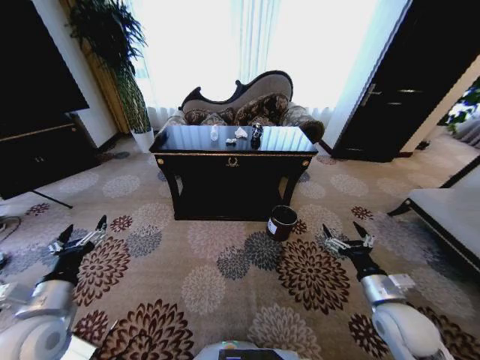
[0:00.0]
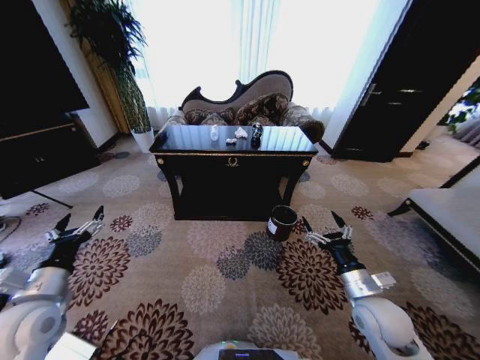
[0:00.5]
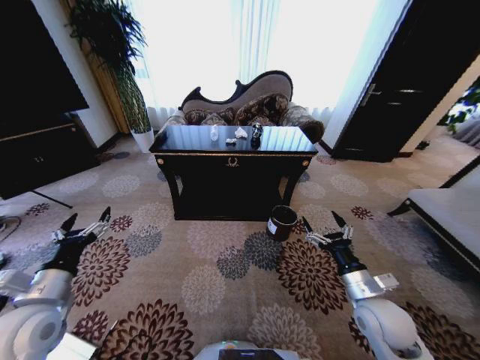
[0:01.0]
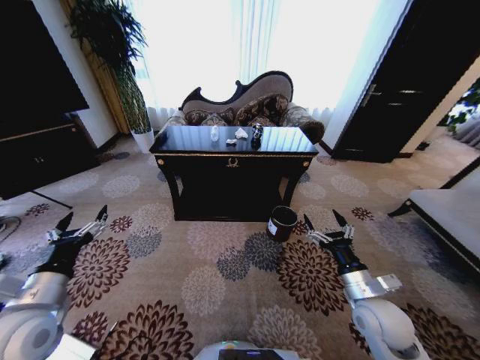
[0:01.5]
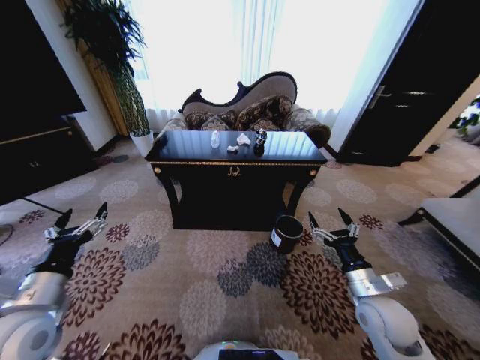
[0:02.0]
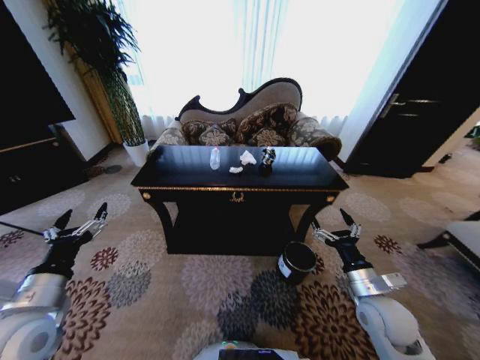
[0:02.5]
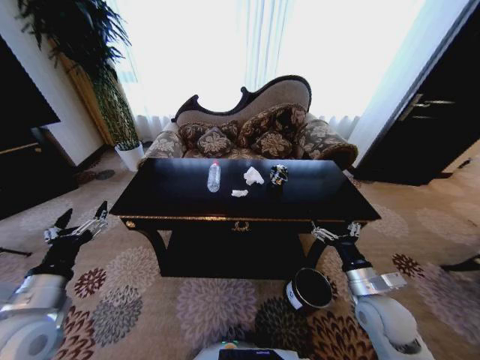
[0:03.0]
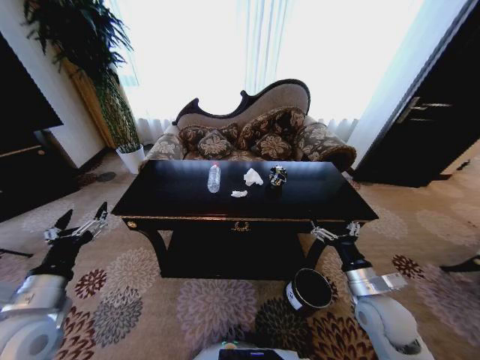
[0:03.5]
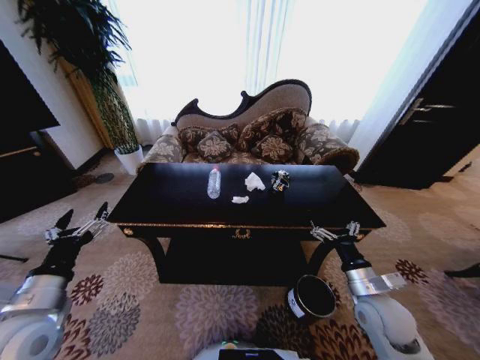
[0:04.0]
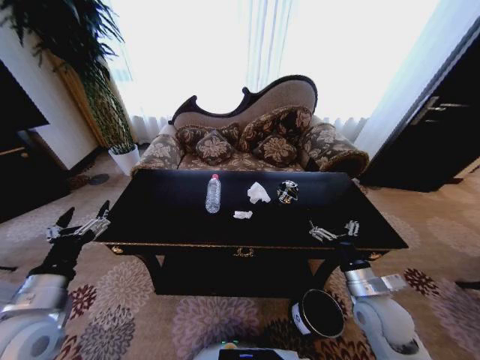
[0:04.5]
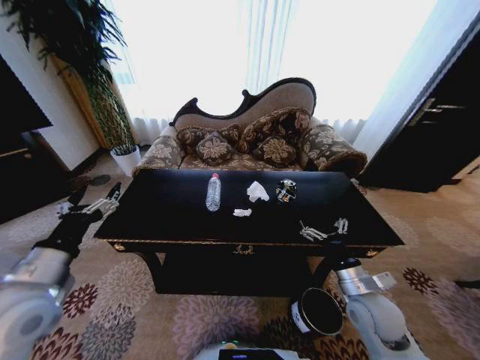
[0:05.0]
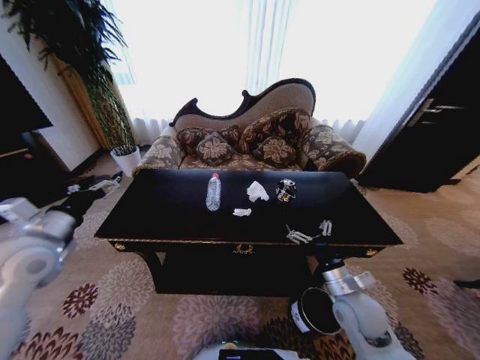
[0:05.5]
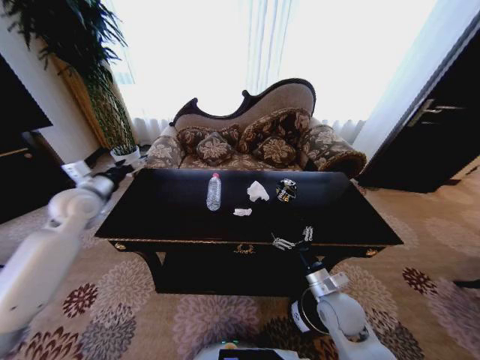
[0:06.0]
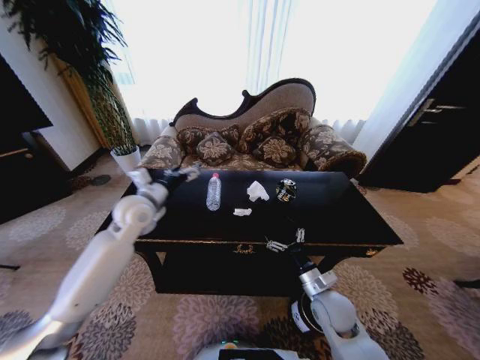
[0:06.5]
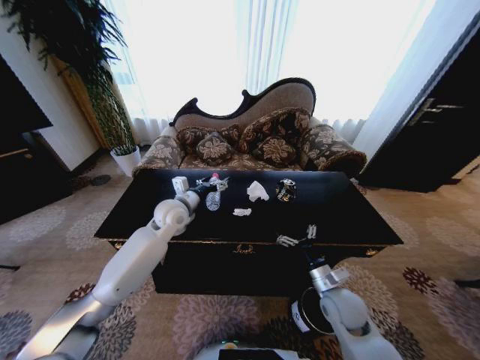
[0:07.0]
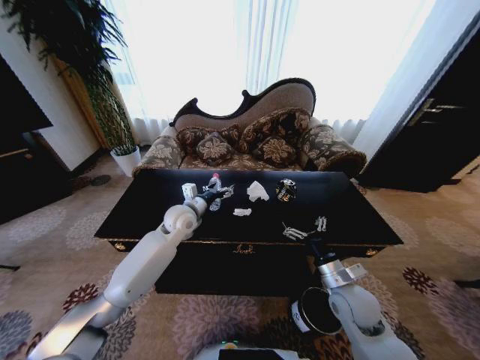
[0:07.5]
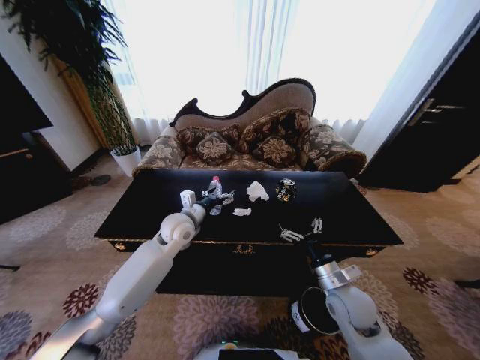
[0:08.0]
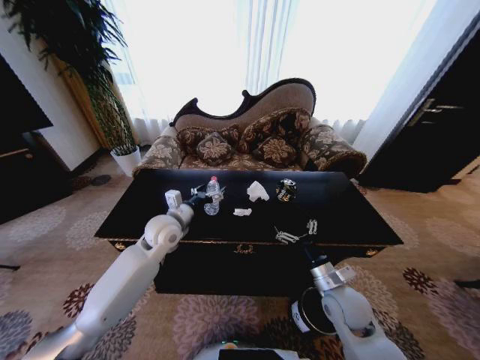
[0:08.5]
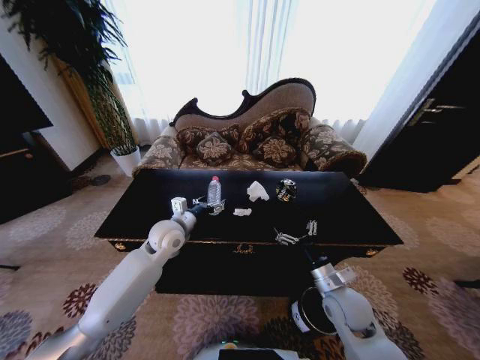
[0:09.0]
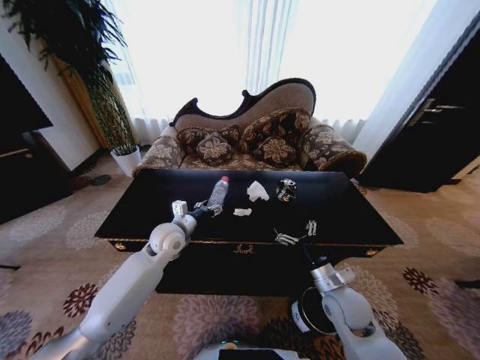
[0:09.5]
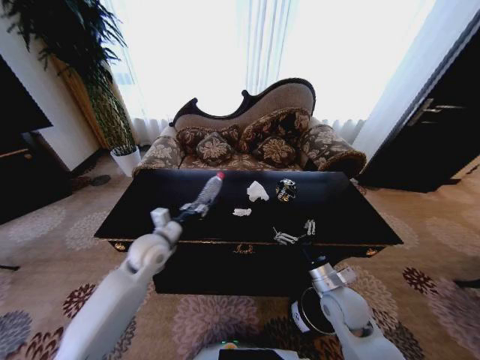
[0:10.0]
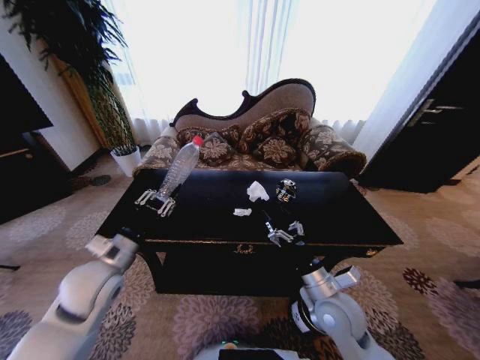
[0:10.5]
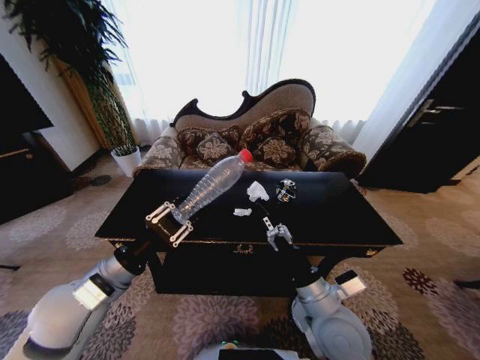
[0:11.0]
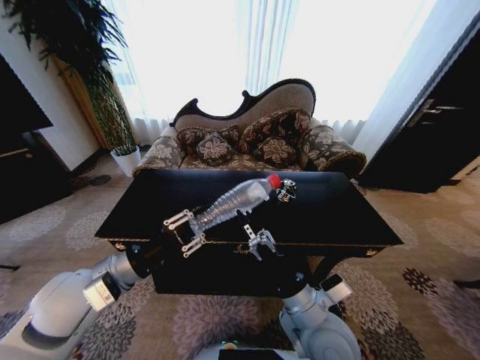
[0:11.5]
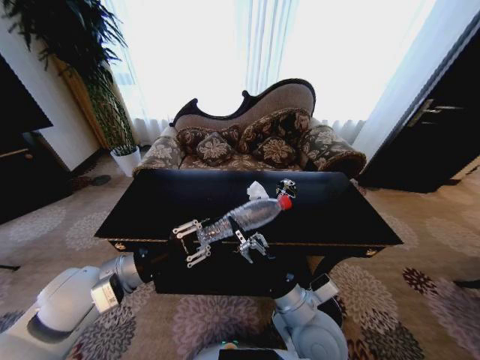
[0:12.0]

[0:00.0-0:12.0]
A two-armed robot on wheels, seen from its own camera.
Task of the whole recording: Move to the front of the table and place the trash on the table into the trash bin.
0:04.0 to 0:06.0: The left gripper heads forward, covering approximately 25 cm, while the right gripper travels to the left by approximately 5 cm.
0:06.0 to 0:08.0: The left gripper shifts some 25 cm to the right and downward.
0:08.0 to 0:10.0: The left gripper moves backward and to the left, some 10 cm, and closes up.
0:10.0 to 0:12.0: The left gripper travels backward and upward by about 15 cm; the right gripper goes some 15 cm to the left, upward and backward.

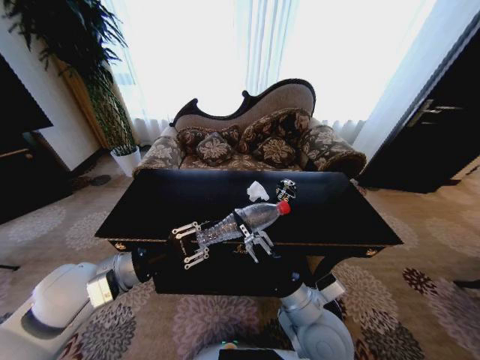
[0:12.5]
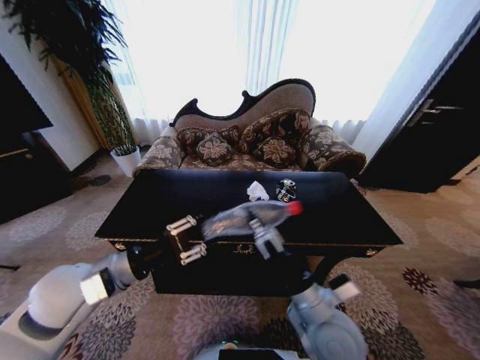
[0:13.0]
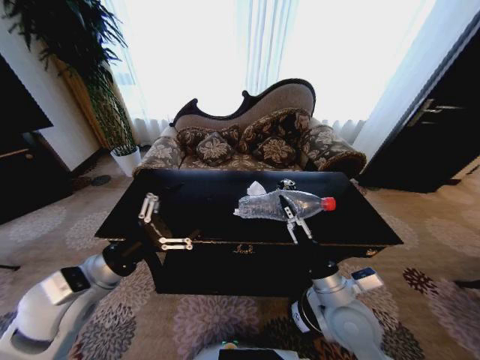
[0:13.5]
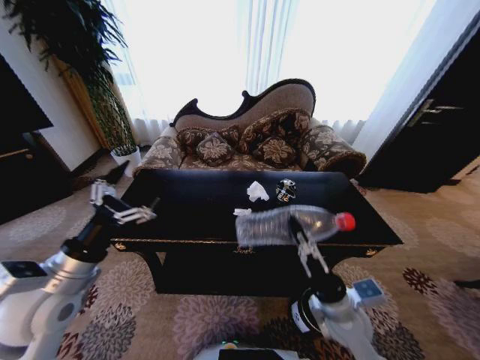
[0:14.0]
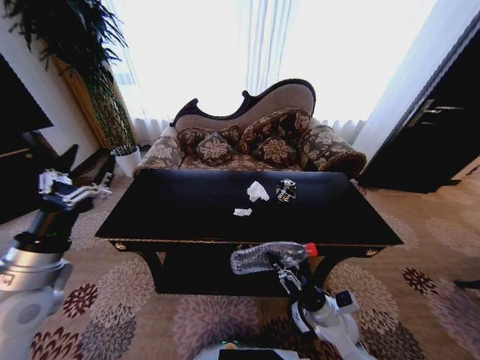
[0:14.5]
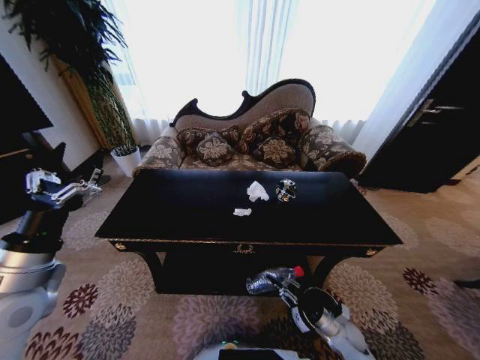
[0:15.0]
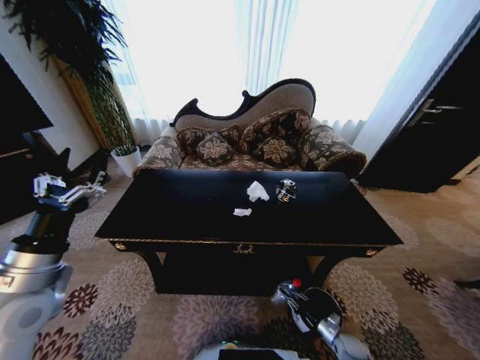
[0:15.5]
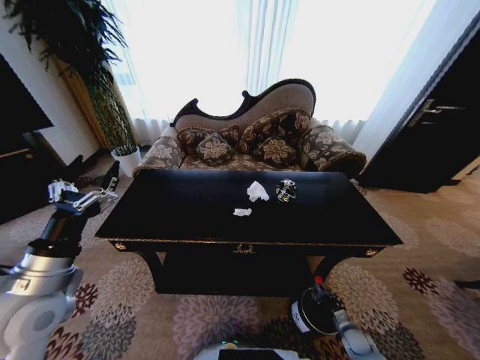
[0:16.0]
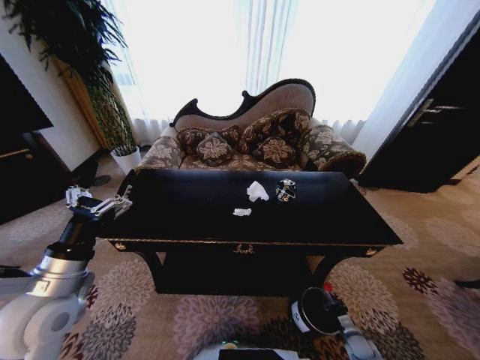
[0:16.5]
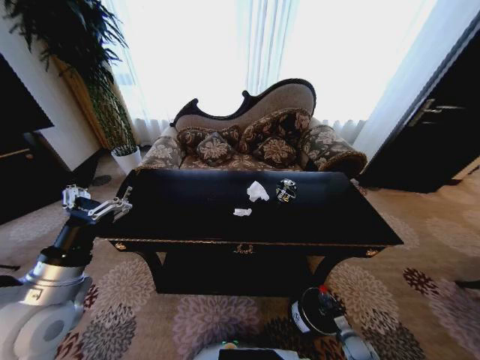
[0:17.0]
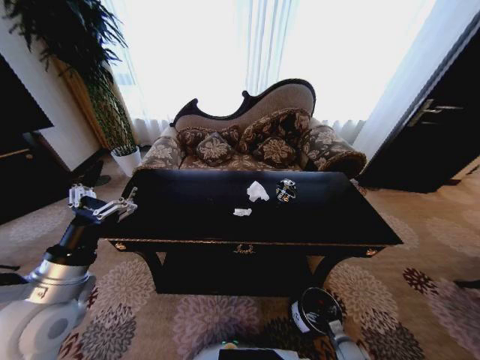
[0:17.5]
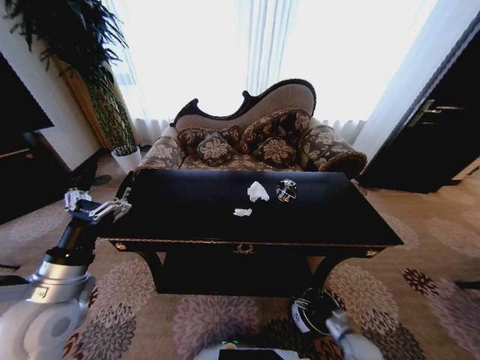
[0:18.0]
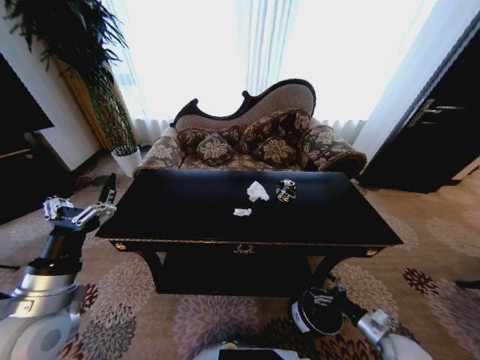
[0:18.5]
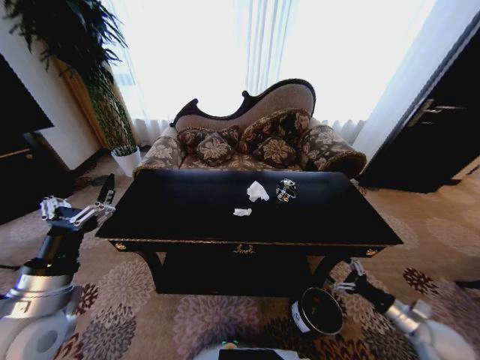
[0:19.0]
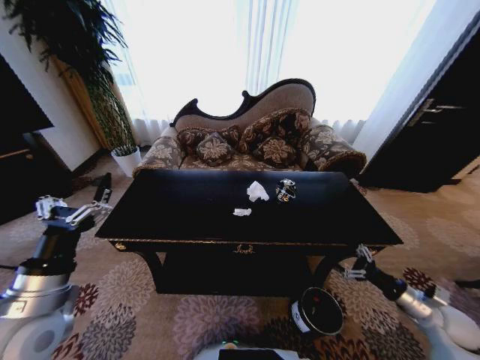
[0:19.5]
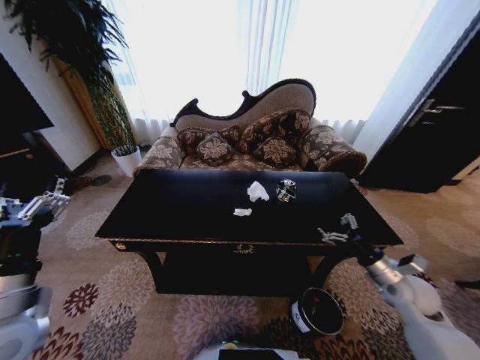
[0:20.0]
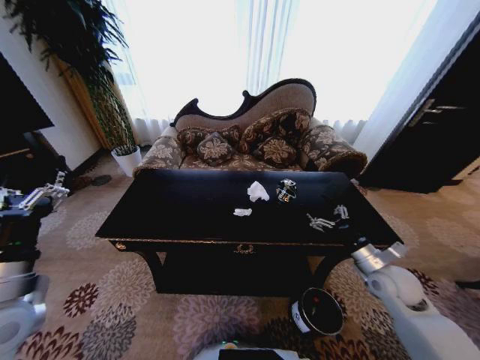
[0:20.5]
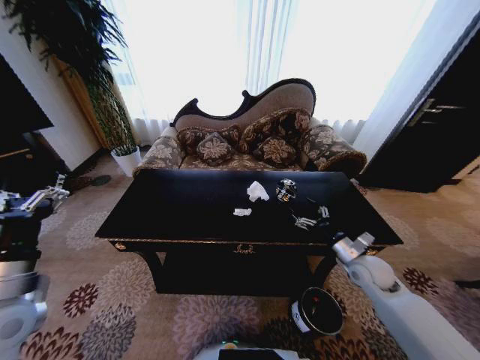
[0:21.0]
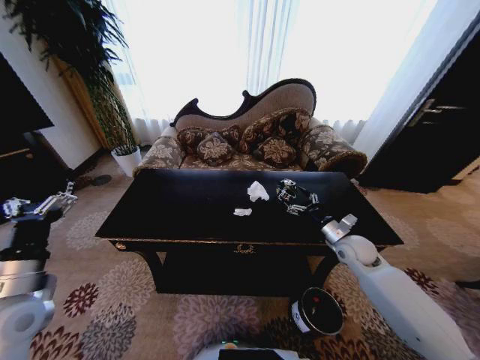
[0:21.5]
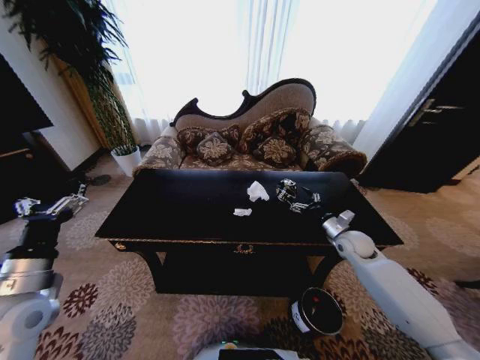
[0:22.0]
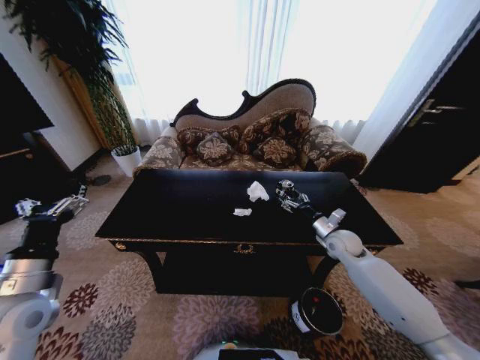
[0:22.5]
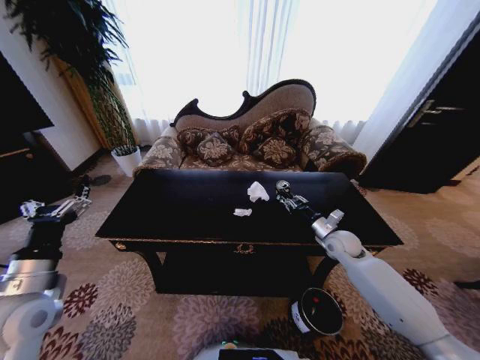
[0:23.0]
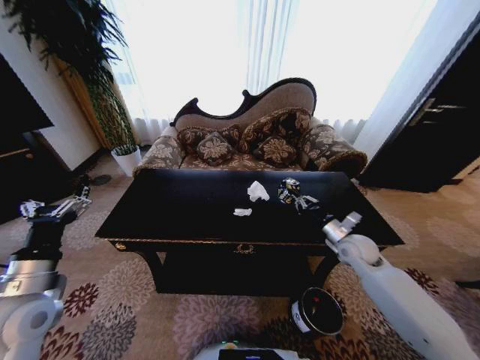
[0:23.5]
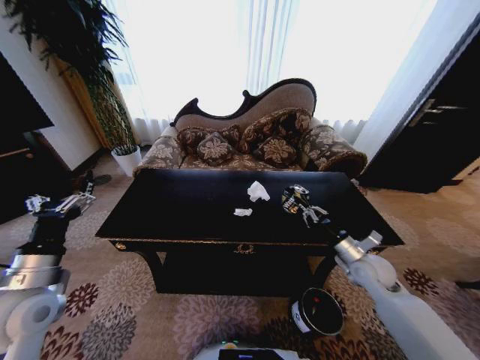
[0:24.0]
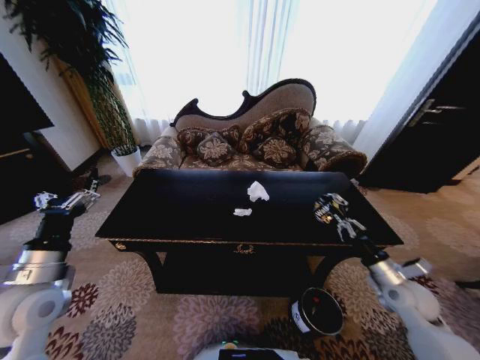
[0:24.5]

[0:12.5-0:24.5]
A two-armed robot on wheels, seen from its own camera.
Task of the whole recording: Move to the front of the table and place the trash on the table into the trash bin.
0:12.5 to 0:14.5: The left gripper shifts about 10 cm to the left, and opens up; the right gripper goes some 20 cm downward and to the right, and closes up.
0:14.5 to 0:16.5: The right gripper shifts approximately 30 cm downward and to the right.
0:16.5 to 0:18.5: The right gripper goes about 15 cm upward, and opens.
0:18.5 to 0:20.5: The right gripper moves upward and forward, some 25 cm. The left gripper shifts by about 5 cm.
0:20.5 to 0:22.5: The right gripper travels forward by about 15 cm.
0:22.5 to 0:24.5: The right gripper shifts some 20 cm backward and to the right, and closes.

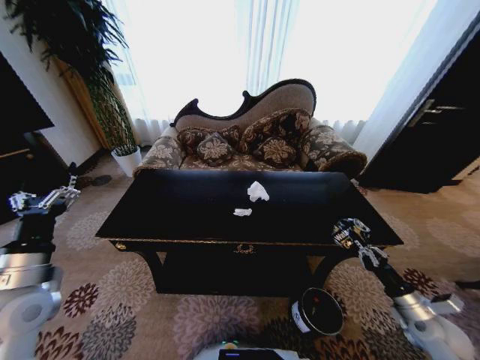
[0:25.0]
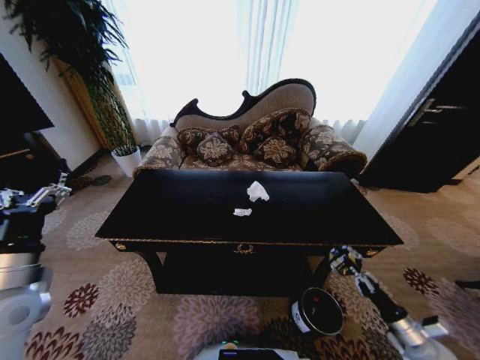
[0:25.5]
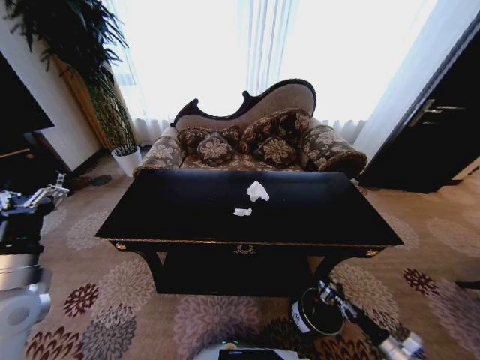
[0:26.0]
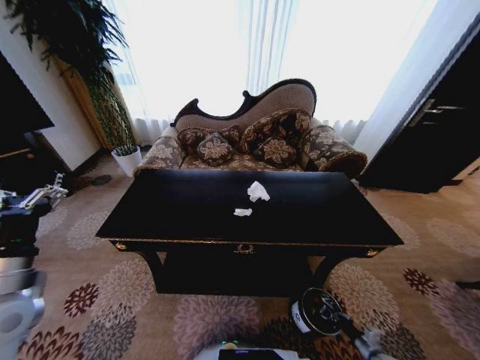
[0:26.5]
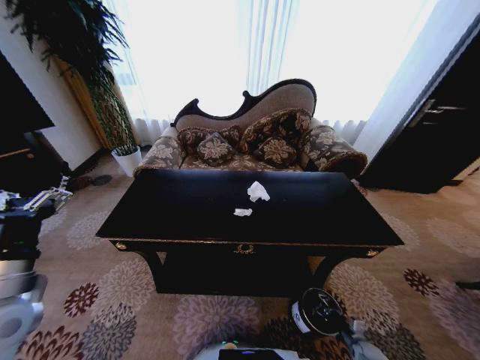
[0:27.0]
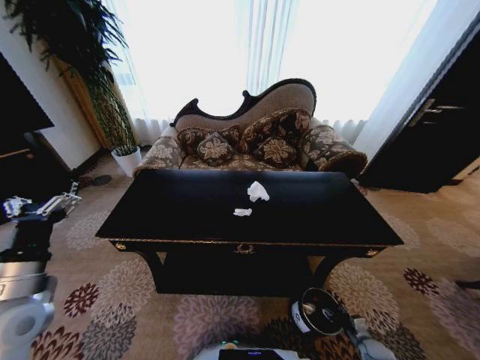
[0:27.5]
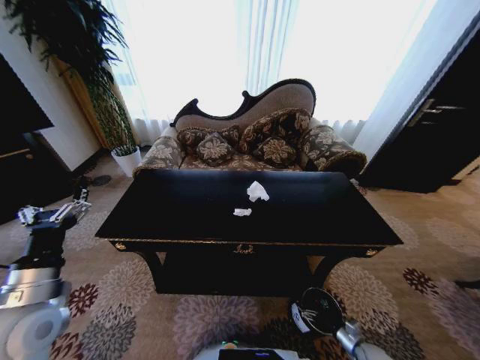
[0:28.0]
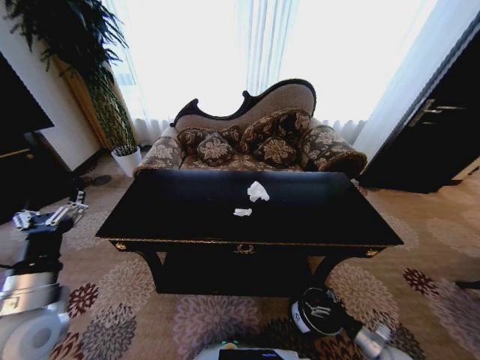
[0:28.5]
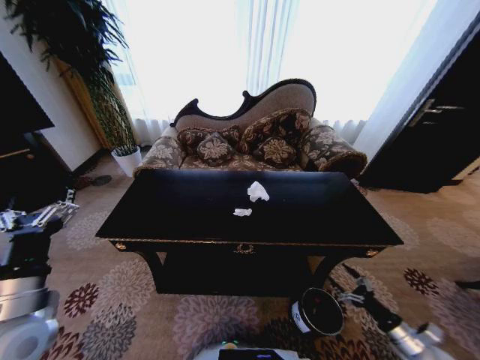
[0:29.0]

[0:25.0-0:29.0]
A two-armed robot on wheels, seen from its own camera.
Task of the whole recording: Move to the front of the table and place the trash on the table into the trash bin.
0:25.0 to 0:27.0: The right gripper is displaced downward by roughly 30 cm.
0:27.0 to 0:29.0: The right gripper goes approximately 20 cm upward, and opens up.
